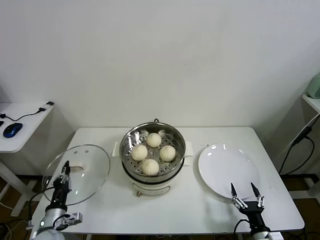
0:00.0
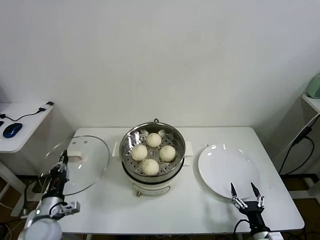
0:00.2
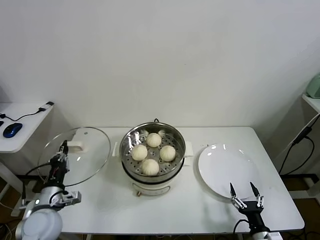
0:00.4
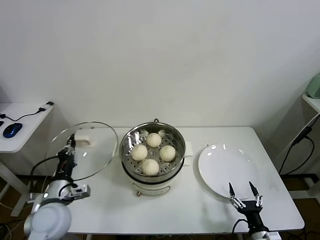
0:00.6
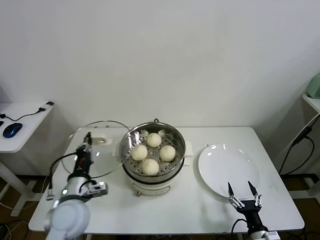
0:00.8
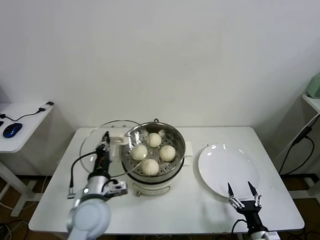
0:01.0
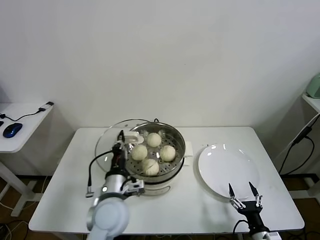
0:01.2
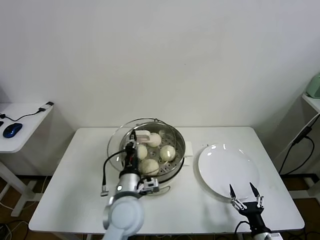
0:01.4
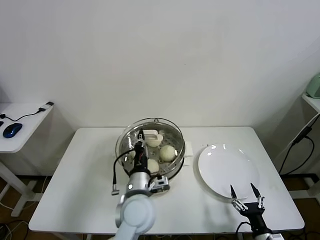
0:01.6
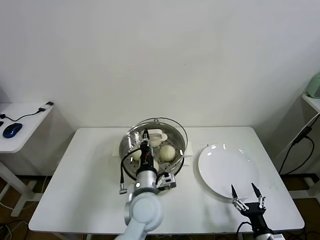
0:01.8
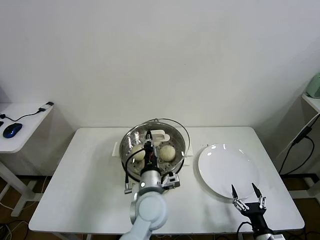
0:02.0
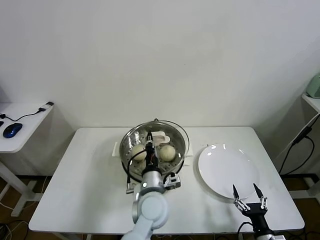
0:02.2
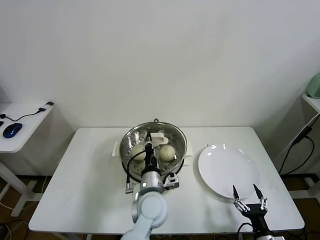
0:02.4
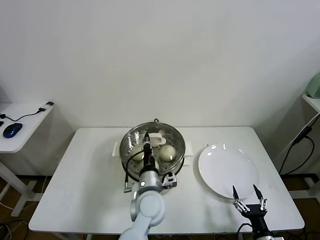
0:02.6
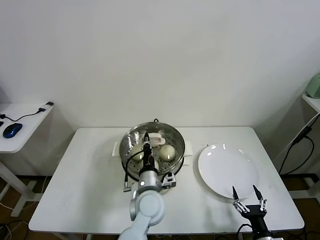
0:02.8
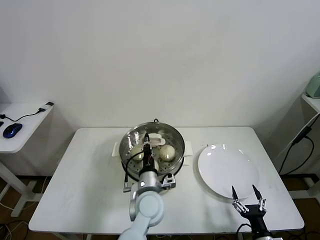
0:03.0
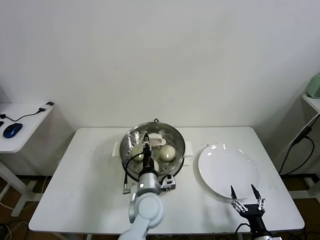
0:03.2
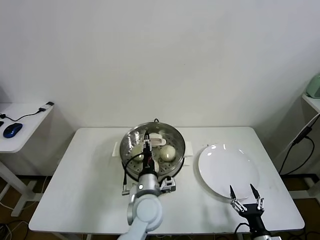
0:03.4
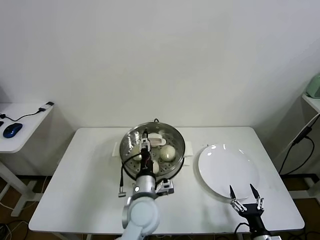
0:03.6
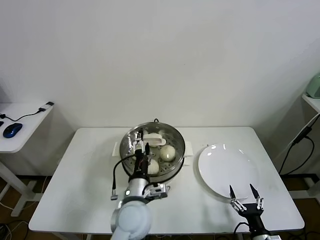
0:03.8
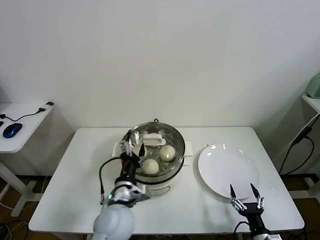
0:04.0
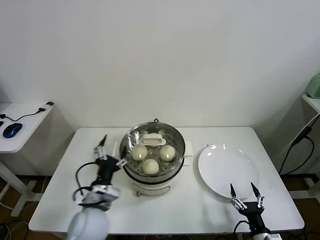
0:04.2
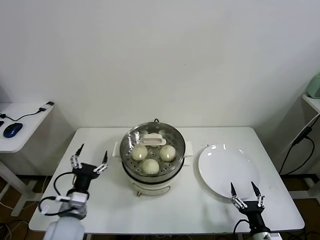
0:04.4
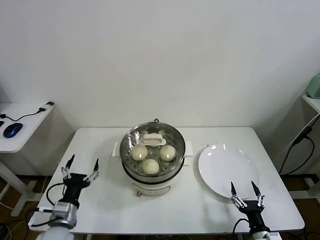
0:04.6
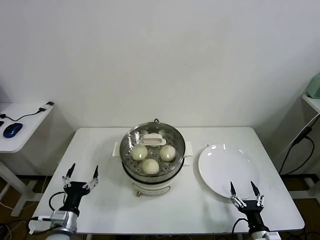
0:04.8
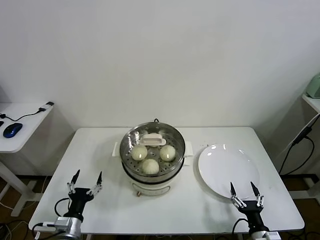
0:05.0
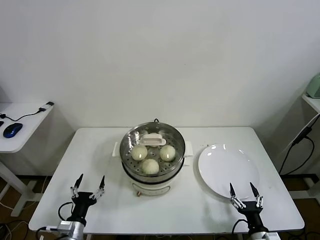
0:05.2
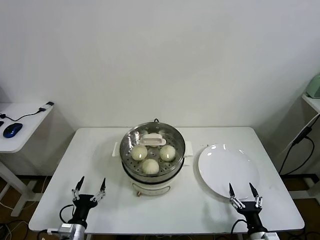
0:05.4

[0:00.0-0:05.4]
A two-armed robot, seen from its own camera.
Task of the whole recording: take steamed baozi put them in steamer.
Step, 0:00.0 to 0:03.6: Place the pot lid on the steamer with left gripper.
0:00.0 to 0:01.4: The left gripper travels to the right and upward by approximately 30 cm.
0:01.4 to 0:02.8: The left gripper heads to the right, covering about 5 cm.
0:02.8 to 0:04.0: The left gripper heads to the left, covering approximately 5 cm, and opens up.
0:04.0 to 0:05.4: The left gripper heads to the left and downward, covering approximately 25 cm.

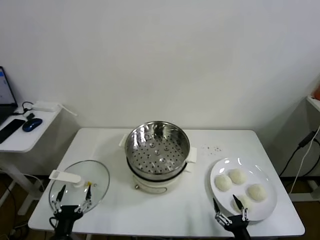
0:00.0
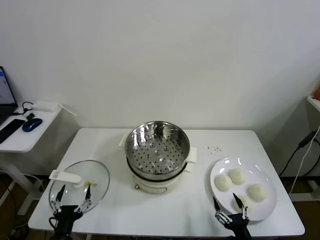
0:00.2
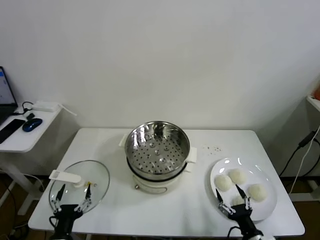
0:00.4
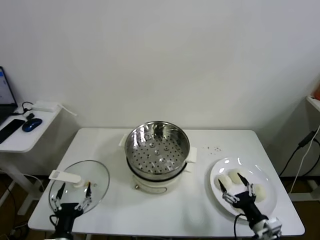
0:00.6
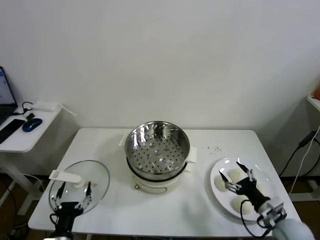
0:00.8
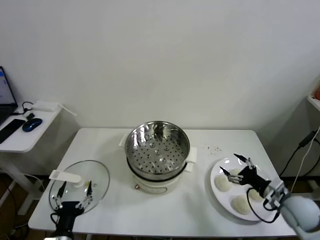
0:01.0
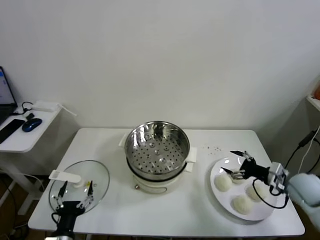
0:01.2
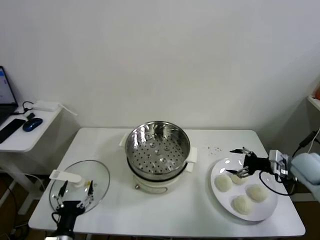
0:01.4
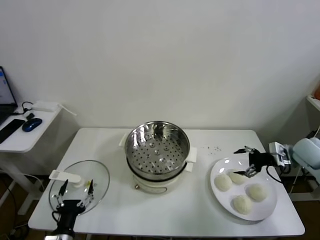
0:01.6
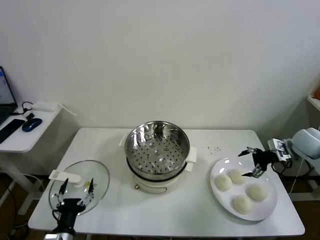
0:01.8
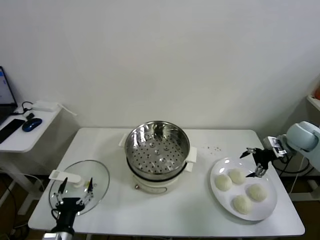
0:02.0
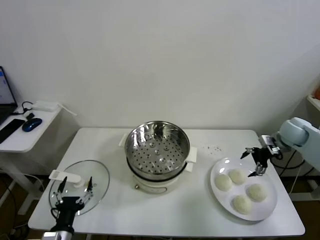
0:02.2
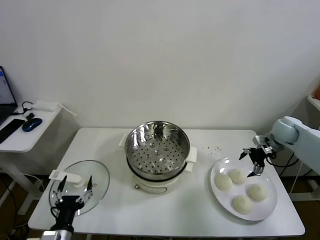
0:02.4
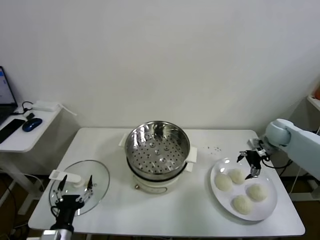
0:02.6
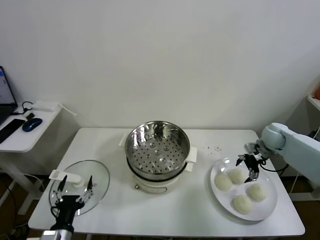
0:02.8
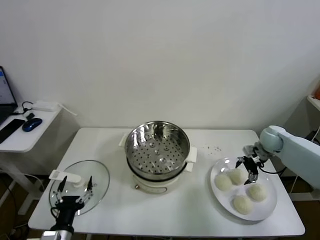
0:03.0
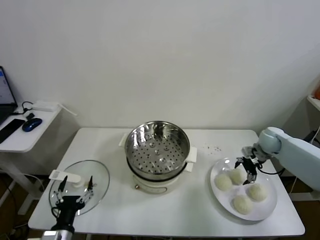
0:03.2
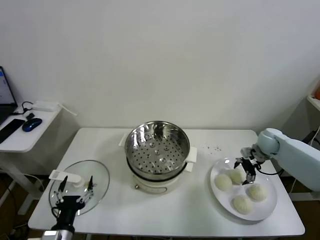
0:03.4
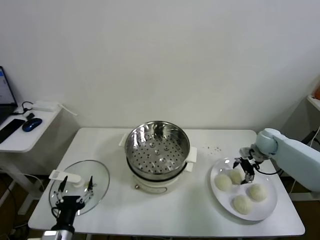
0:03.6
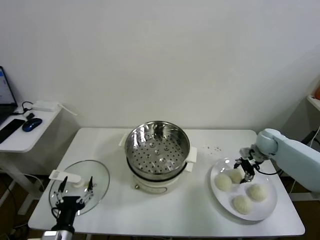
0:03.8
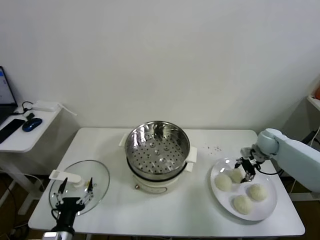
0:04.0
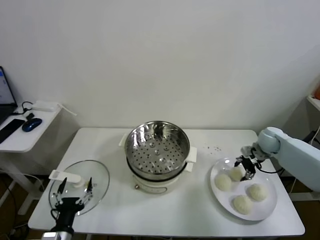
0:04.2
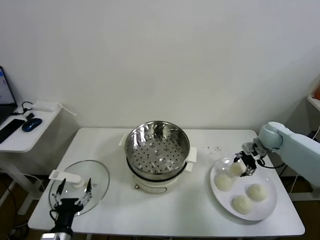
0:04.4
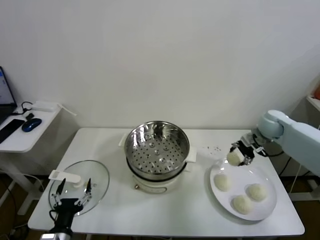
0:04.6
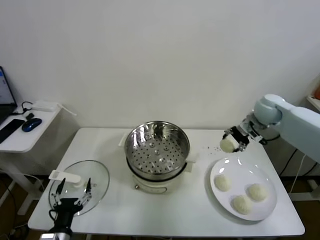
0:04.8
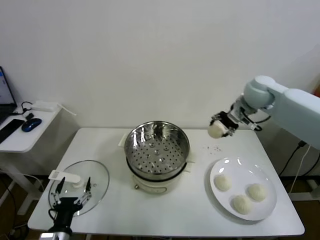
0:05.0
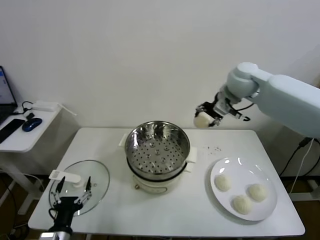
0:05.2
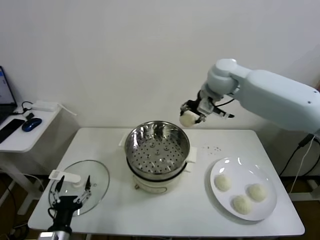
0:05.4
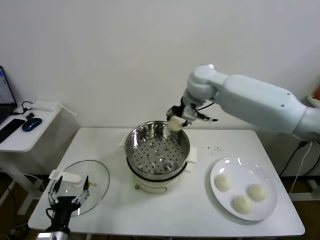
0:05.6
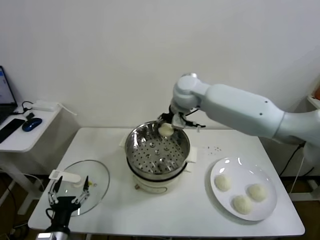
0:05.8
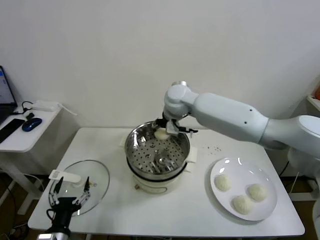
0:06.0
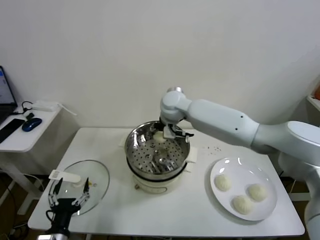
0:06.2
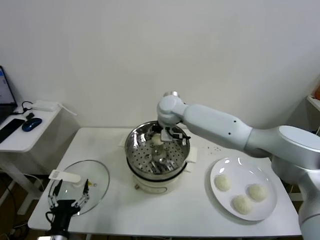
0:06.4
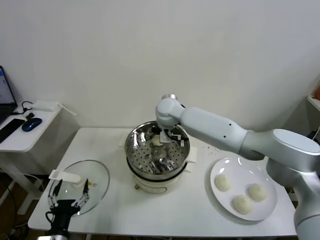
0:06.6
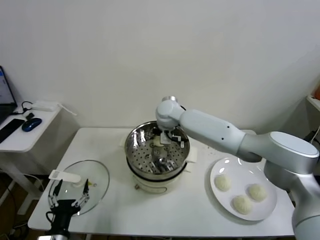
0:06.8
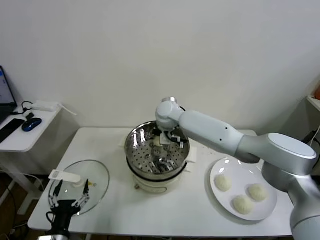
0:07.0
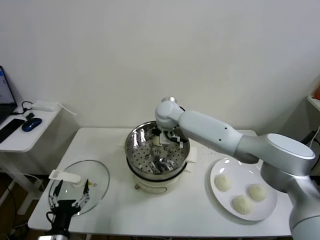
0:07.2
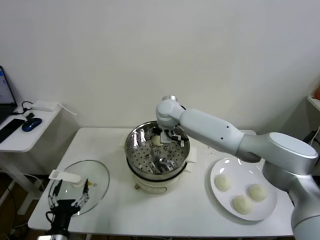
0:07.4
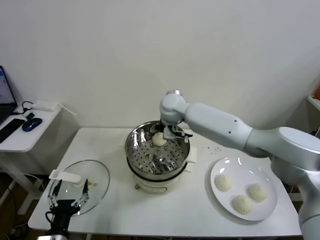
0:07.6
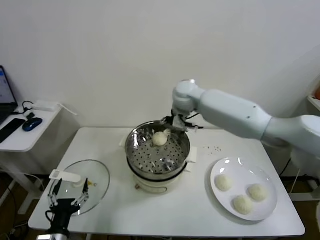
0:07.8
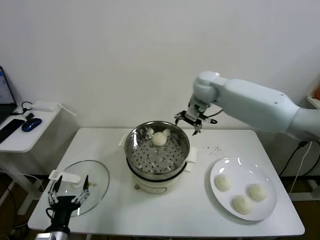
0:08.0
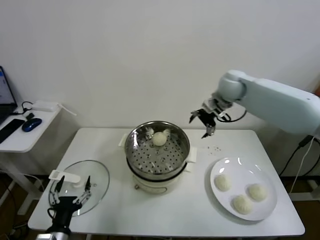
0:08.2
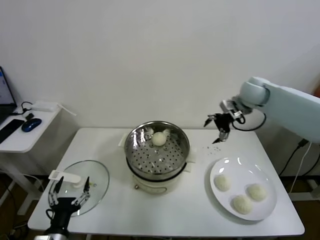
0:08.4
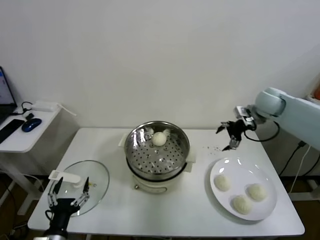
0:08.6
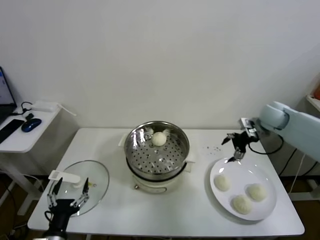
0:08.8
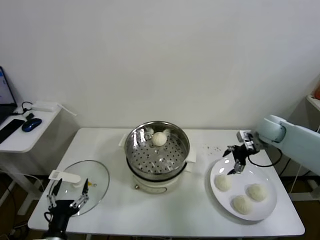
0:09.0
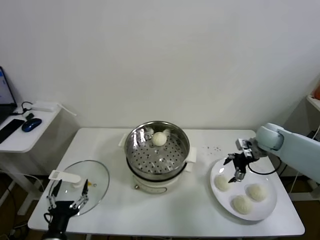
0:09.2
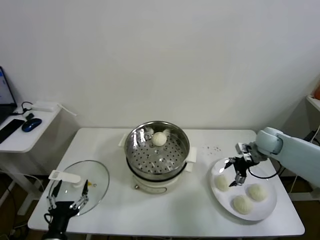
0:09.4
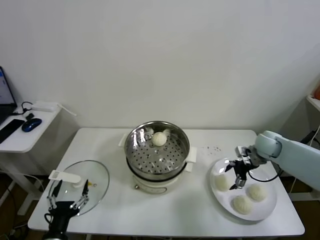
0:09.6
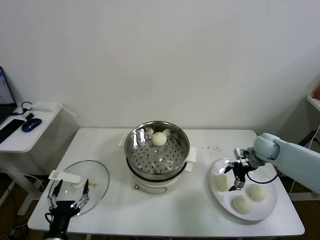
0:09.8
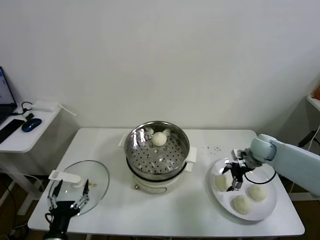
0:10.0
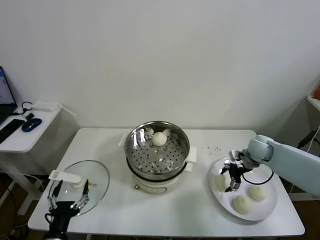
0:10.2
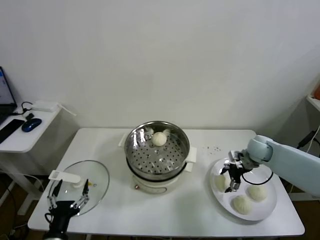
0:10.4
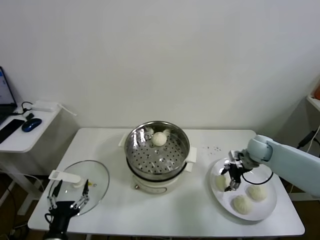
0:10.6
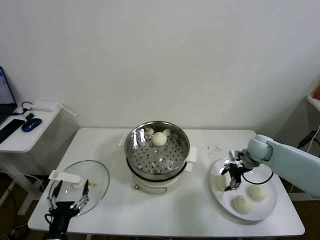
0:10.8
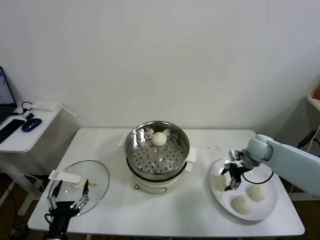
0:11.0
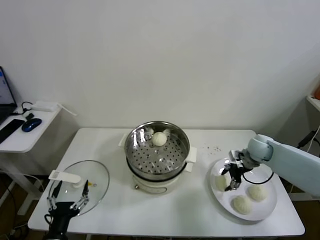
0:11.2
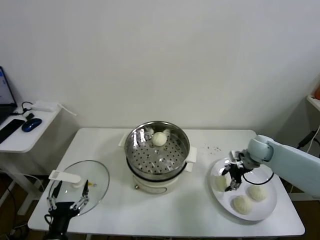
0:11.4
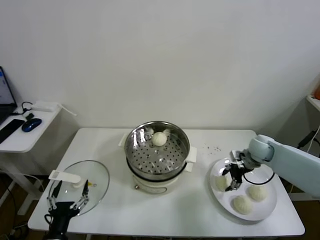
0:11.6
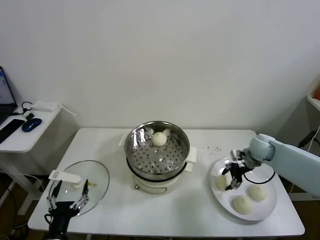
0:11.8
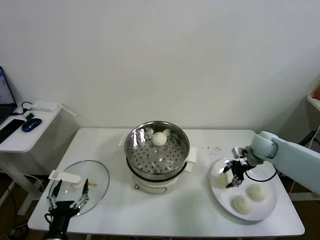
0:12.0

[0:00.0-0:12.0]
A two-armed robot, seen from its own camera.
Task of the whole recording: take steamed baozi put them in steamer.
Step, 0:00.0 to 0:04.0: Grasp the baozi in the plate with right gripper.
Step, 0:04.2 to 0:07.6: Place the baozi on the steamer with right gripper.
Step, 0:07.8 to 0:11.0: Grasp the baozi in the plate with right gripper.
0:01.6 to 0:03.0: The right gripper moves forward, downward and to the left, some 10 cm.
0:03.0 to 0:04.4: The right gripper closes its fingers.
0:04.4 to 0:06.0: The right gripper travels to the left by approximately 35 cm.
0:06.0 to 0:07.6: The right gripper opens.
0:07.6 to 0:09.0: The right gripper heads to the right, covering approximately 35 cm.
0:09.0 to 0:10.4: The right gripper is displaced downward by some 5 cm.
0:10.4 to 0:12.0: The right gripper closes.

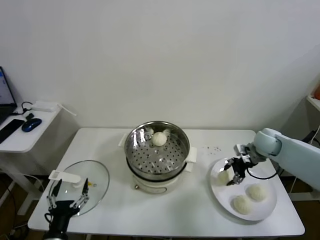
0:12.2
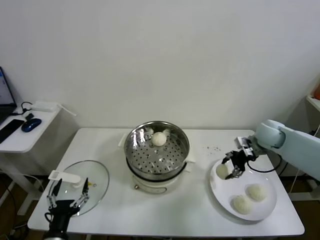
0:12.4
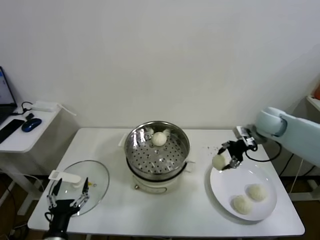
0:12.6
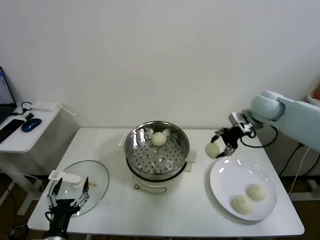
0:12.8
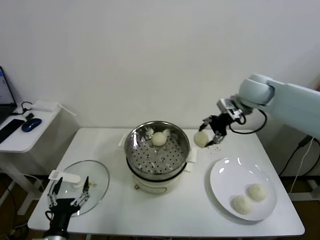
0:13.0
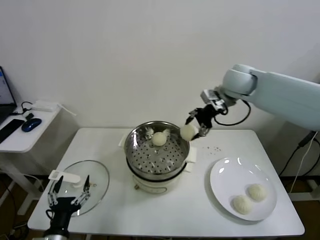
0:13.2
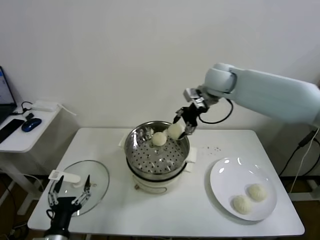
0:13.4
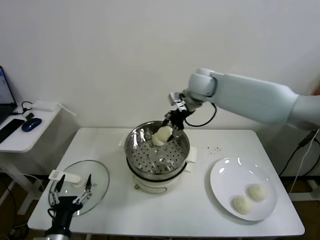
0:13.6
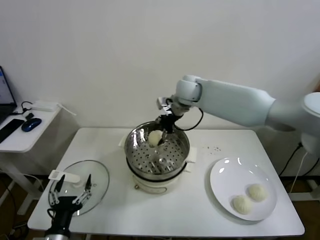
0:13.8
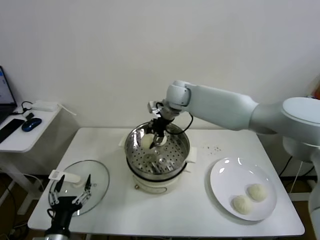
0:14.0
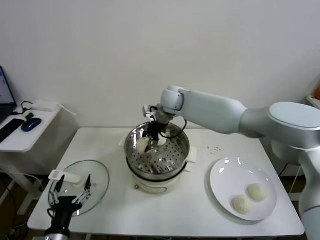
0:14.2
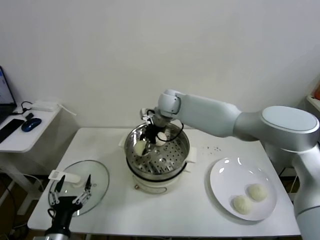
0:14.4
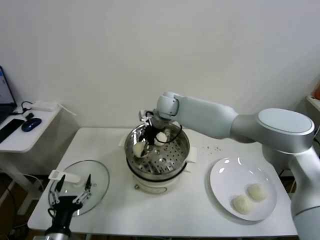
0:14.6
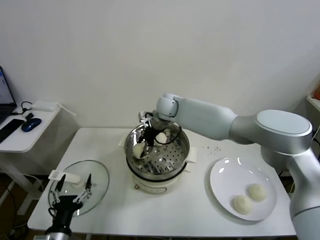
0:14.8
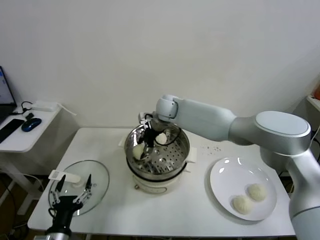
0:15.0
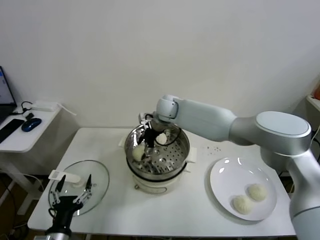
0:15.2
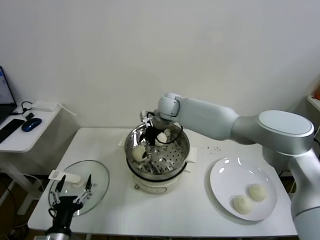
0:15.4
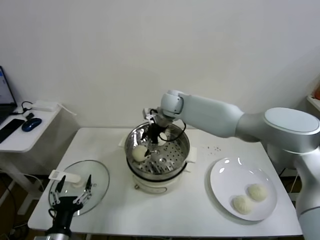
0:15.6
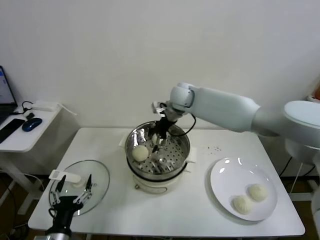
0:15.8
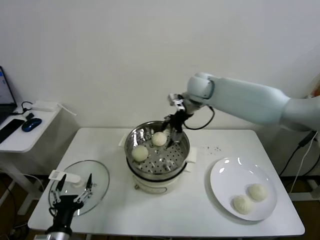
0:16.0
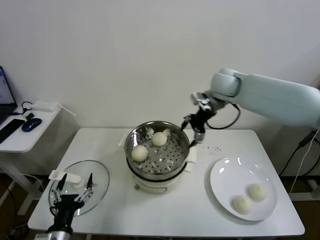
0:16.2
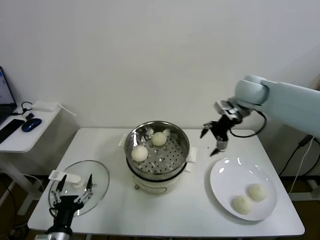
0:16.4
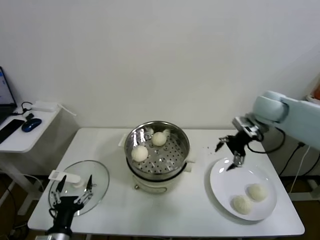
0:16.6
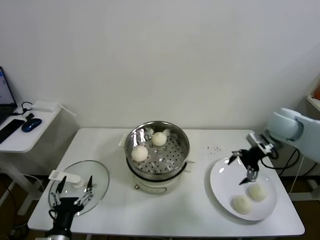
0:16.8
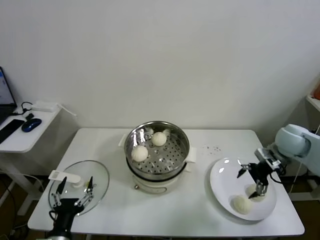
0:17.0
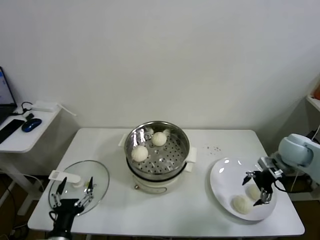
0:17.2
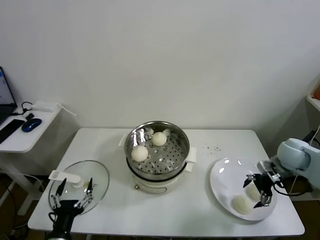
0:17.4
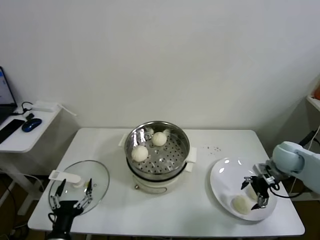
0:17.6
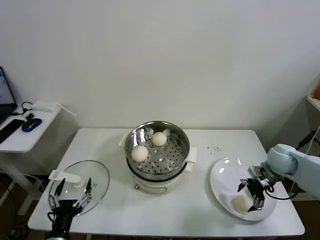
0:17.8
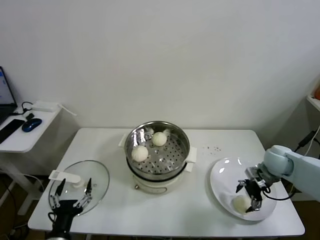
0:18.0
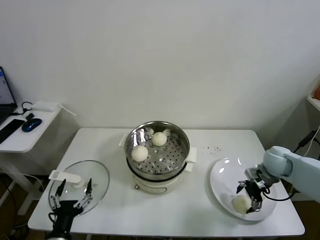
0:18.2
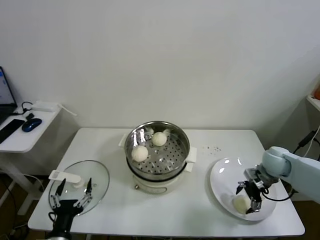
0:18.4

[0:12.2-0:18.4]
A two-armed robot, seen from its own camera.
Task of the whole recording: take steamed baozi put them in steamer.
Step, 0:12.2 to 0:15.4: Place the baozi on the steamer with right gripper.
0:12.2 to 0:13.8: The right gripper moves to the left and upward, approximately 35 cm.
0:13.8 to 0:15.4: The right gripper goes some 10 cm downward and to the left, and opens.
0:15.4 to 0:16.8: The right gripper shifts approximately 35 cm to the right.
0:16.8 to 0:18.4: The right gripper heads downward, covering about 15 cm.
